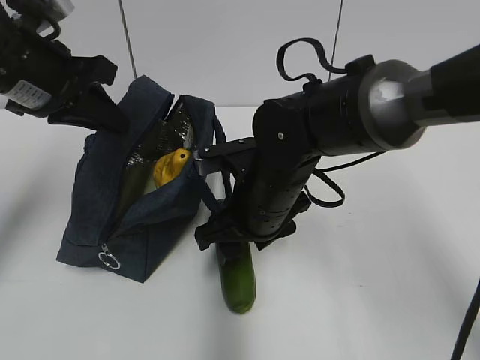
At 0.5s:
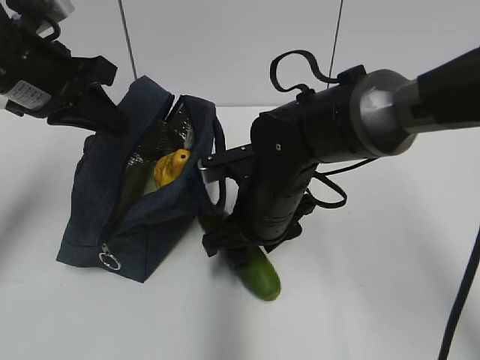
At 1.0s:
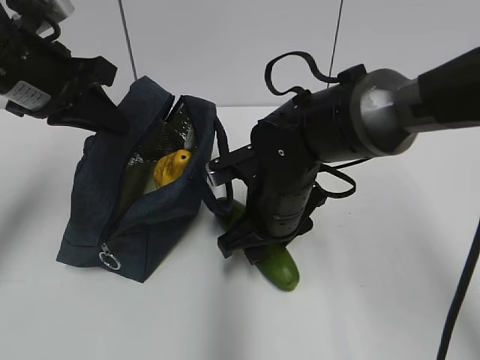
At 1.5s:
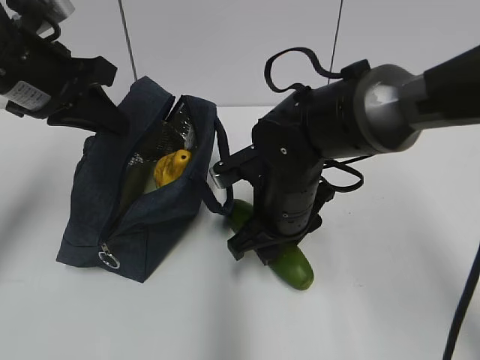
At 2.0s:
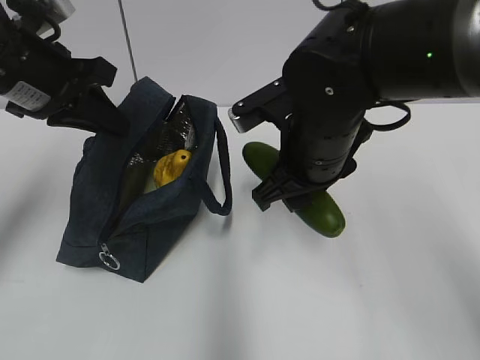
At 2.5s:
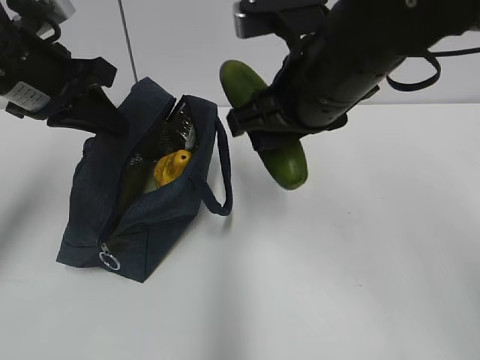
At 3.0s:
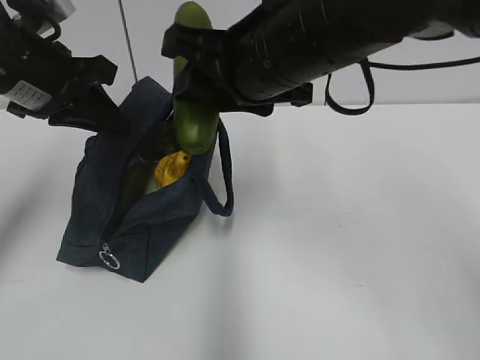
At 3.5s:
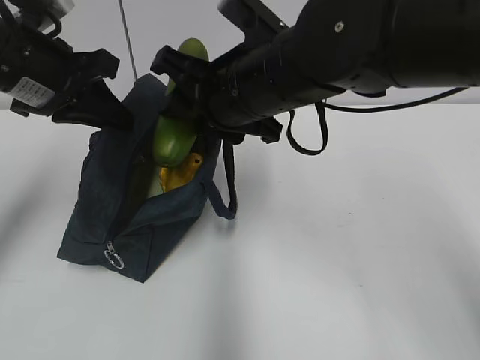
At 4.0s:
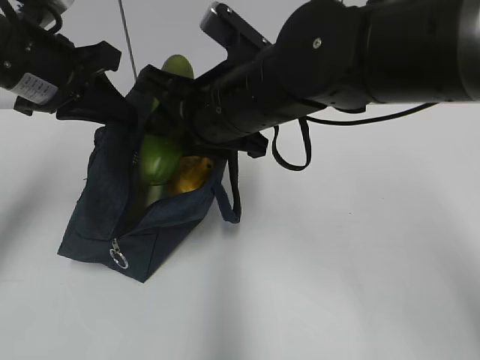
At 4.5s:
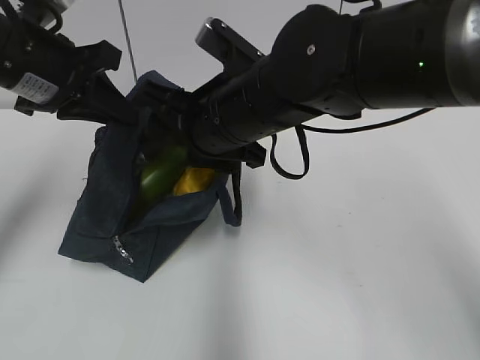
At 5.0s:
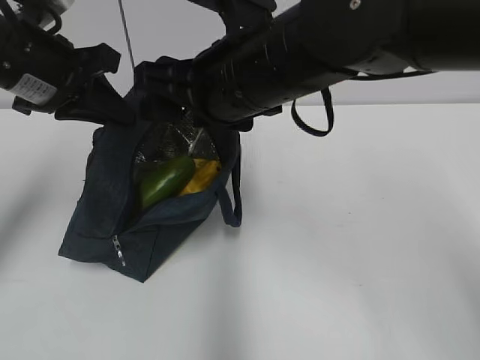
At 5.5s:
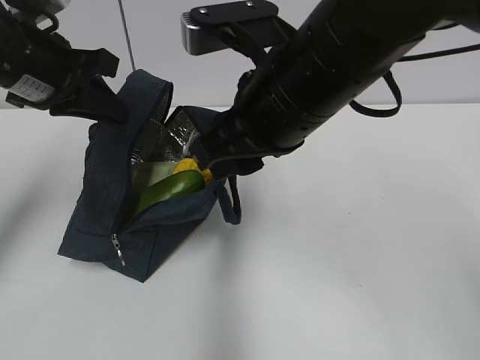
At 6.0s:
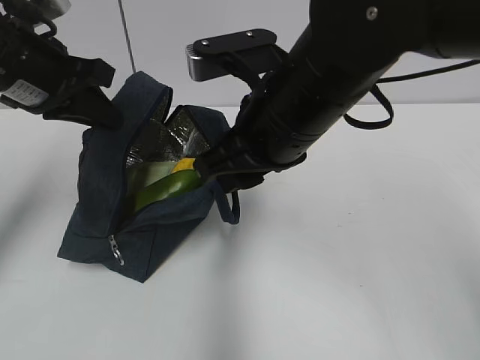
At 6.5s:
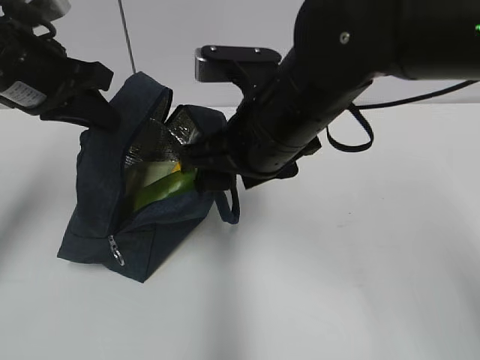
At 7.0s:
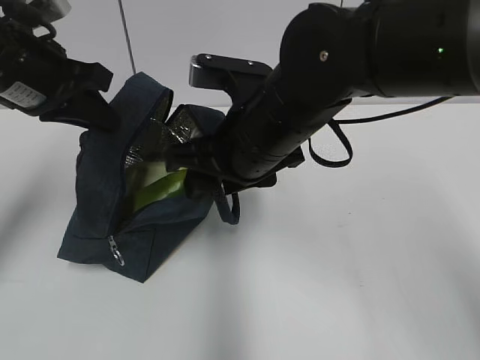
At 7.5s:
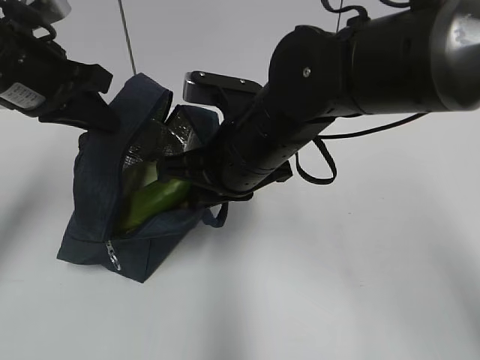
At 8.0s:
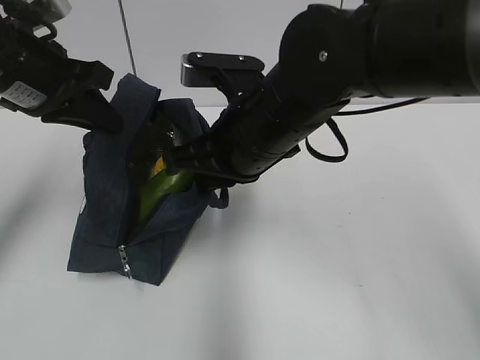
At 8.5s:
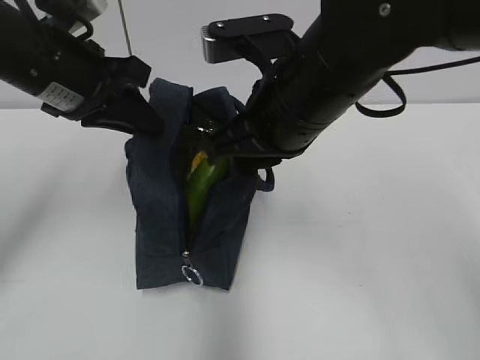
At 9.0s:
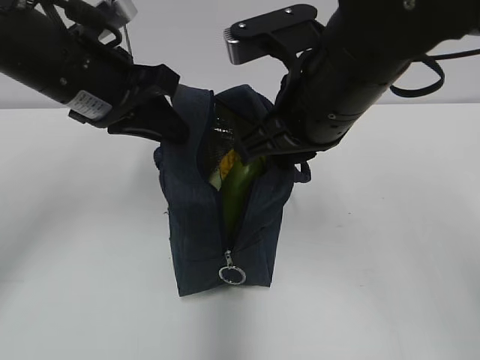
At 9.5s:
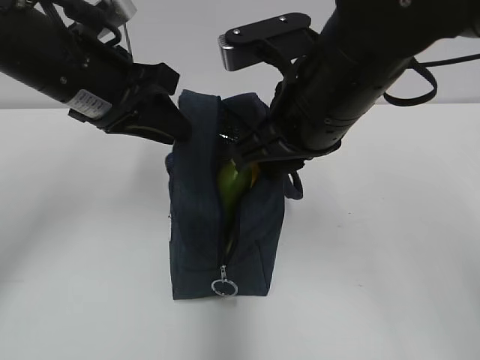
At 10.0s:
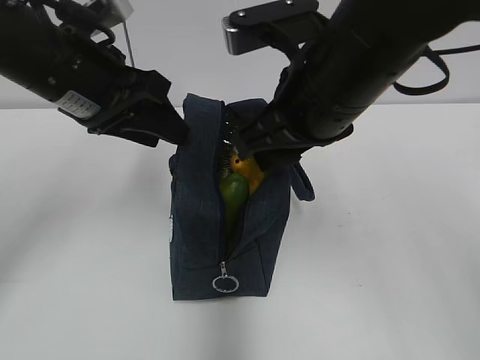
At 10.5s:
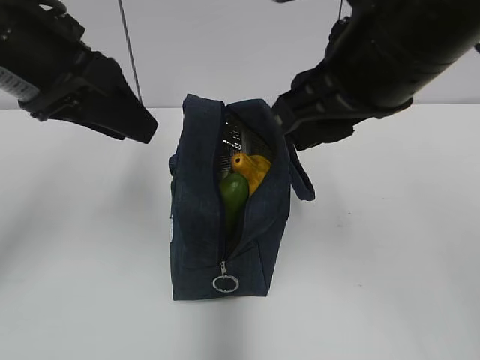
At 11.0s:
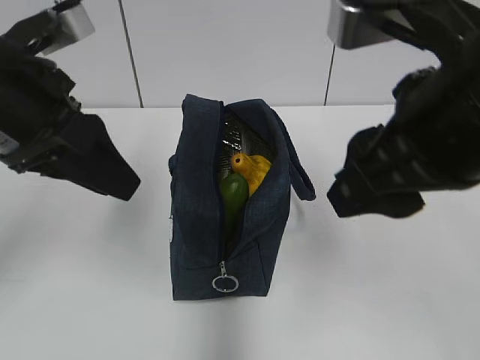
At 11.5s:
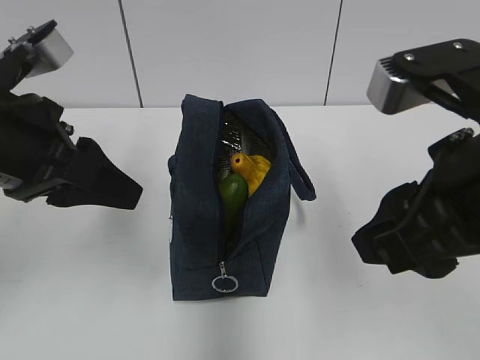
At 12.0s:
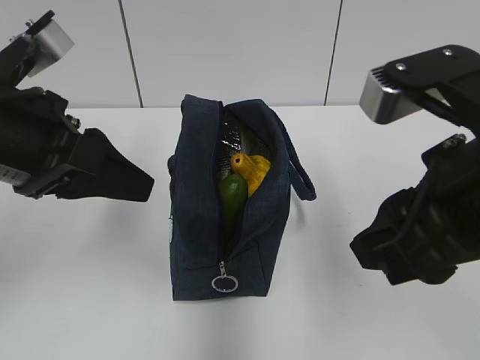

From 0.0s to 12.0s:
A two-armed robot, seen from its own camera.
Step, from 5.0s to 7.5s: Grab the lunch bag with your right hand.
Step, from 8.0s to 9.5s: Move the lunch bag to the right.
From 0.0s to 2.0s: The right gripper travels upward by about 5 cm.
From 2.0s to 4.0s: The right gripper travels to the left by about 5 cm.
From 4.0s to 6.0s: The right gripper ends up approximately 5 cm from where it was.
From 6.0s to 8.0s: The right gripper closes its fingers.
From 8.0s to 10.0s: The left gripper shifts approximately 5 cm to the right, and opens up; the right gripper moves upward, approximately 5 cm, and opens.
From 10.0s to 12.0s: The left gripper heads backward, covering approximately 10 cm; the right gripper goes approximately 15 cm backward and to the right.

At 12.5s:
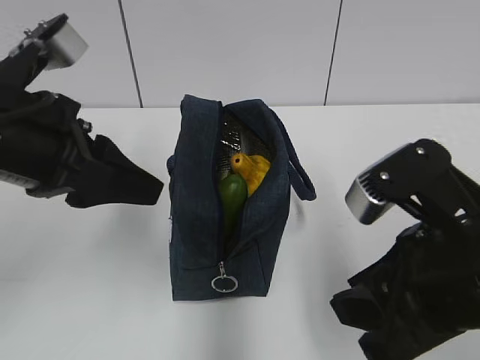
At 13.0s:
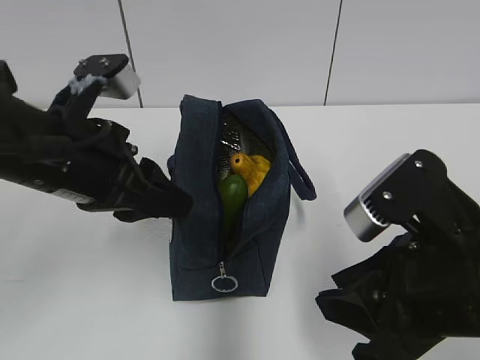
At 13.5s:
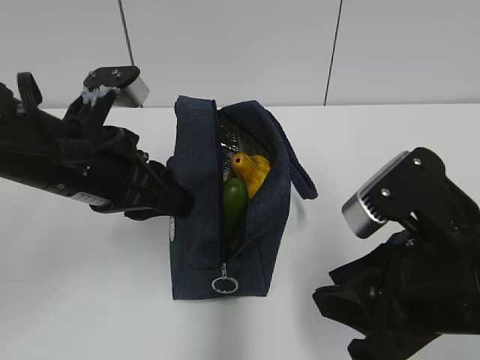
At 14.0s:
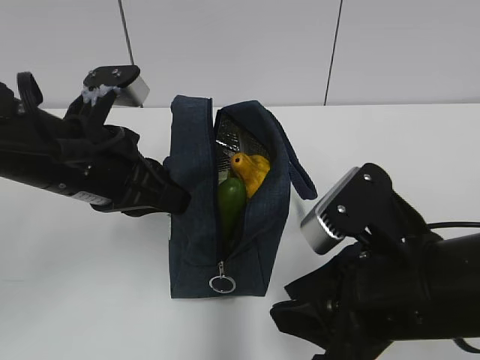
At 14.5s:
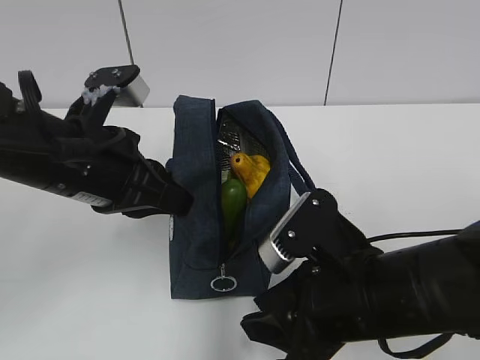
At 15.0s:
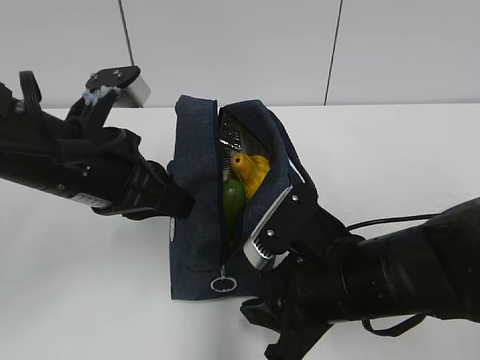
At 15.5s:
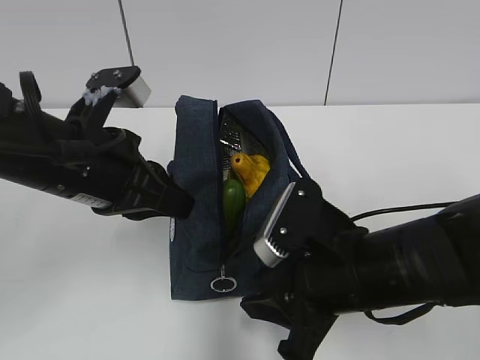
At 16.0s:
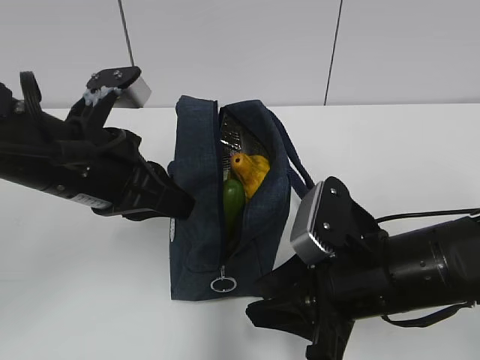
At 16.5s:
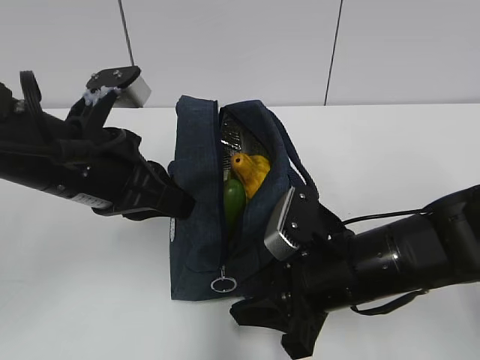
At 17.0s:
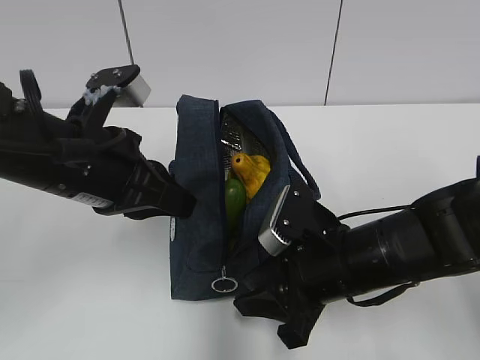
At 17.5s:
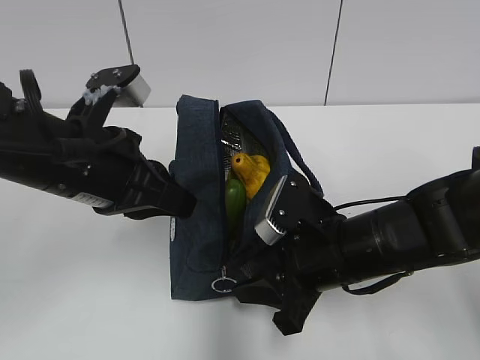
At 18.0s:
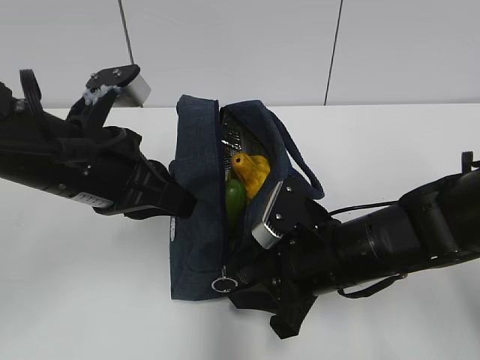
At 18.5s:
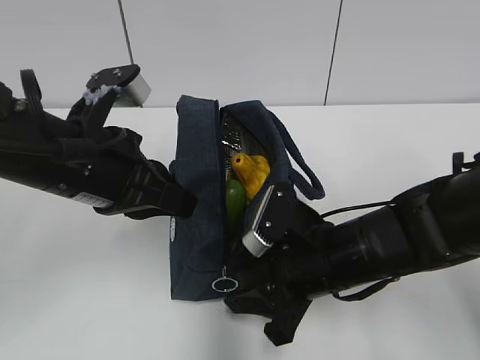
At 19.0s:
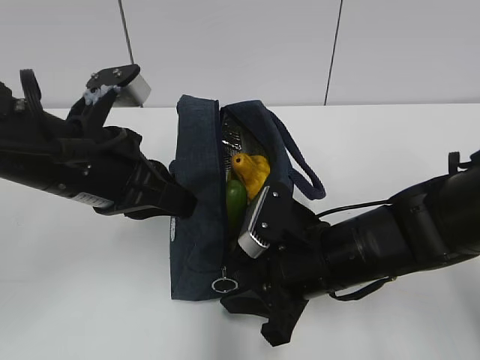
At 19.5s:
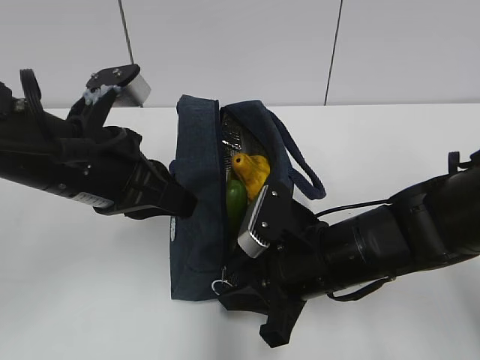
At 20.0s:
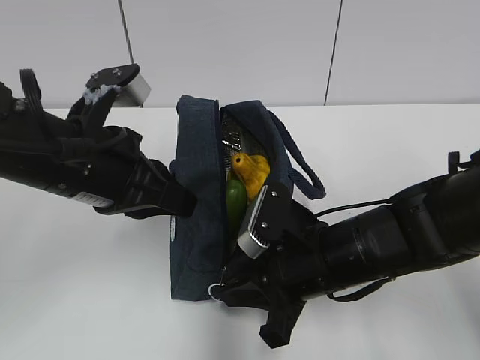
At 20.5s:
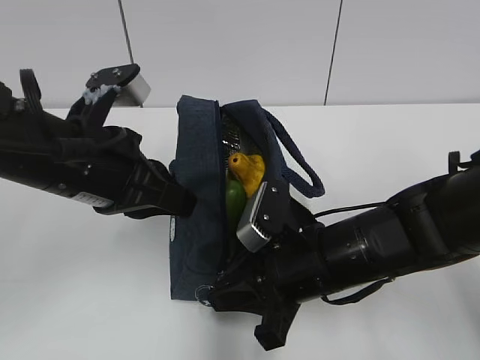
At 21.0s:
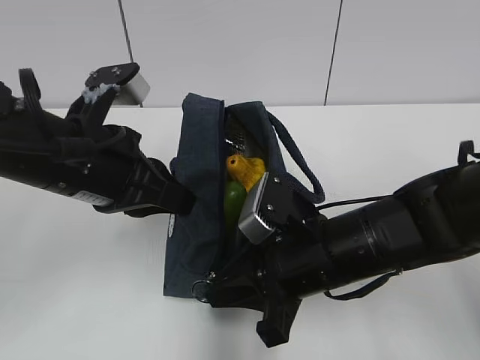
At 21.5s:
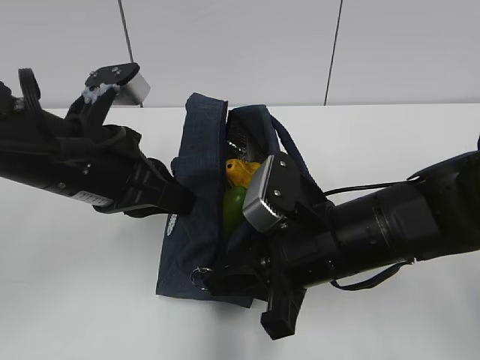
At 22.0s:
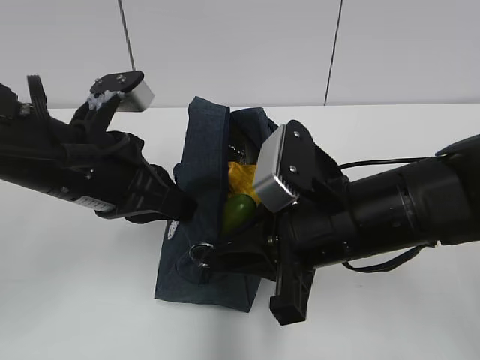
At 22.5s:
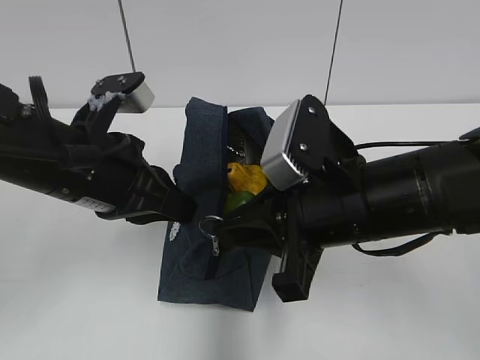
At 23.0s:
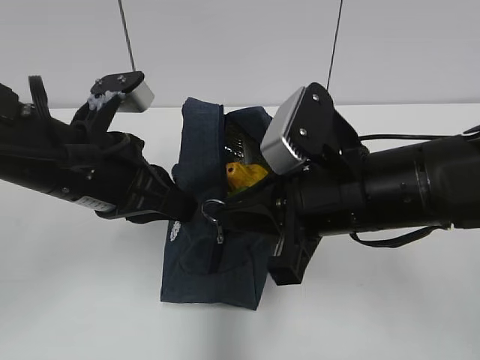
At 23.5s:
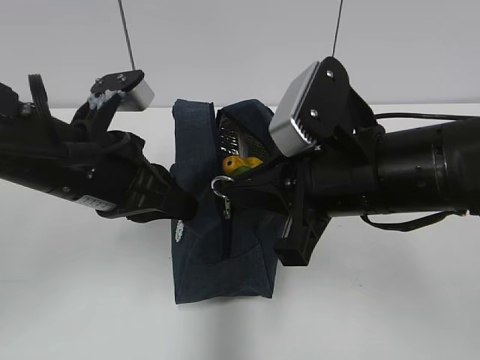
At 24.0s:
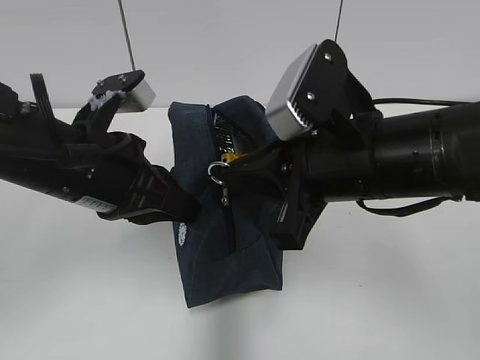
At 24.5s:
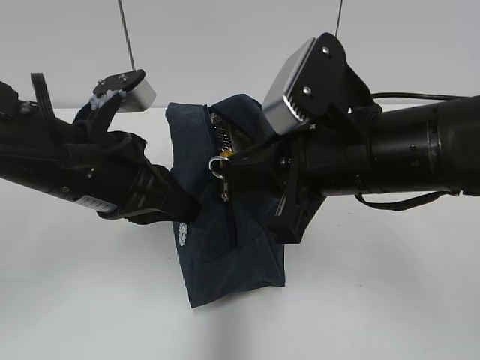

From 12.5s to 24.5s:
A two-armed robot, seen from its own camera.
From 12.5s to 14.5s: The right gripper shifts approximately 5 cm downward, while the left gripper moves about 5 cm, and closes.
From 14.5s to 16.5s: The right gripper moves forward, approximately 5 cm.
From 16.5s to 18.5s: The grippers stay close to where they were, moving slightly.
From 18.5s to 20.5s: The right gripper closes.
From 20.5s to 22.5s: The right gripper moves upward, some 10 cm.

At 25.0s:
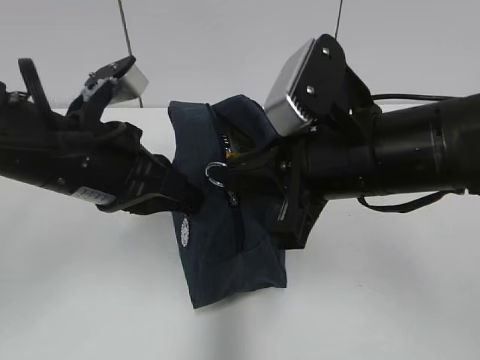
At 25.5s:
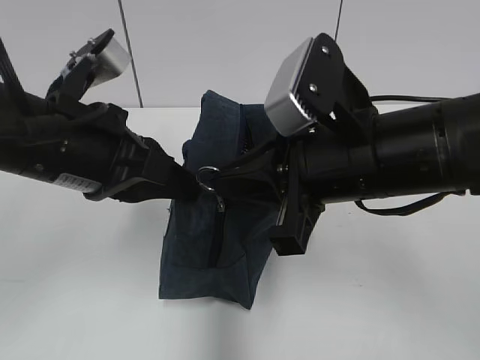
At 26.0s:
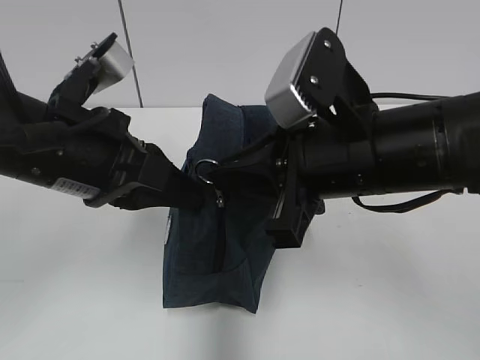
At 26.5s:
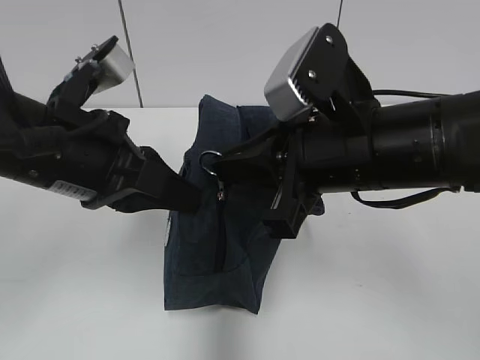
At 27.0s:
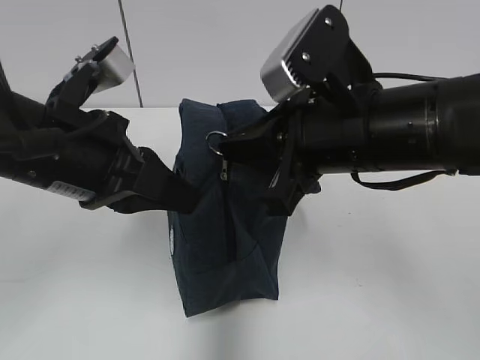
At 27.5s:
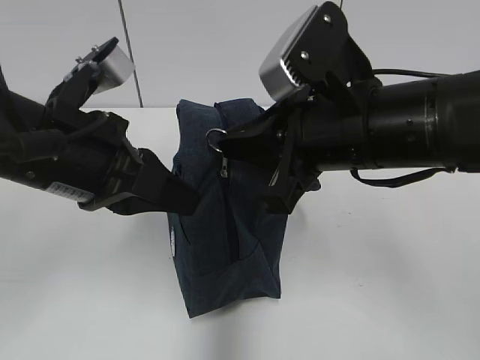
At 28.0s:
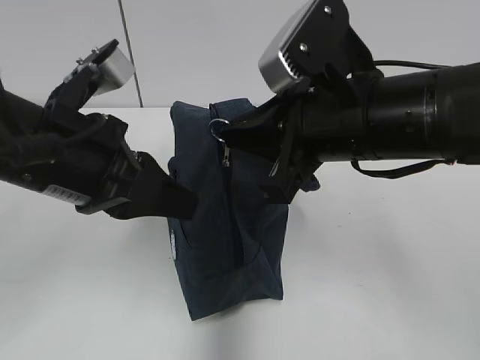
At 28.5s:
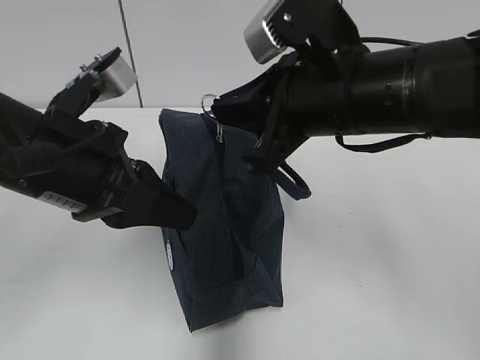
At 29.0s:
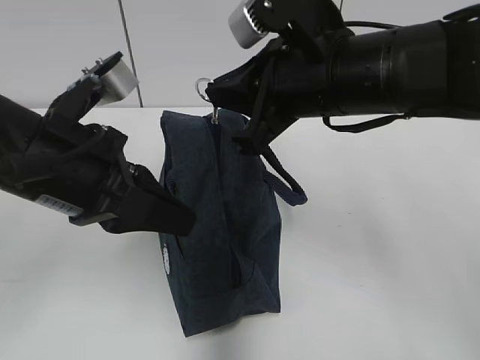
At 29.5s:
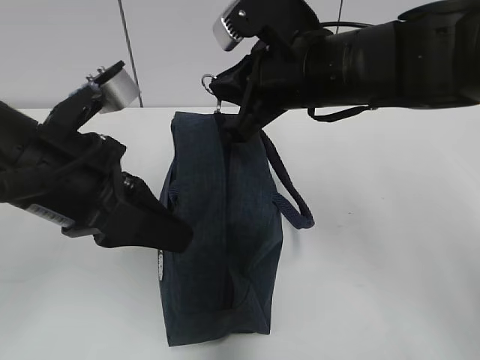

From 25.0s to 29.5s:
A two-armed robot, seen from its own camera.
From 25.0s to 27.0s: The grippers make only small movements.
From 27.0s to 29.5s: The right gripper heads forward, covering approximately 5 cm.
